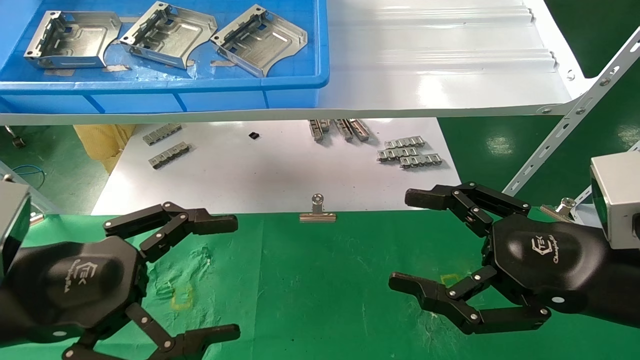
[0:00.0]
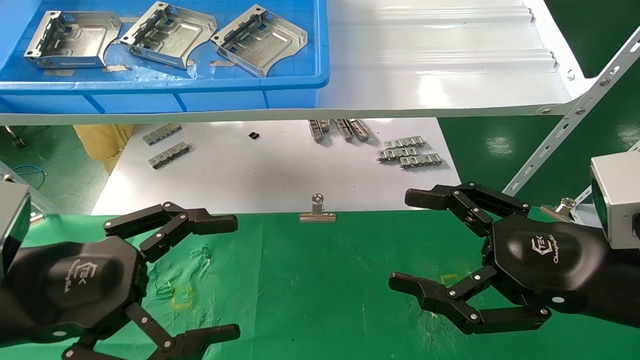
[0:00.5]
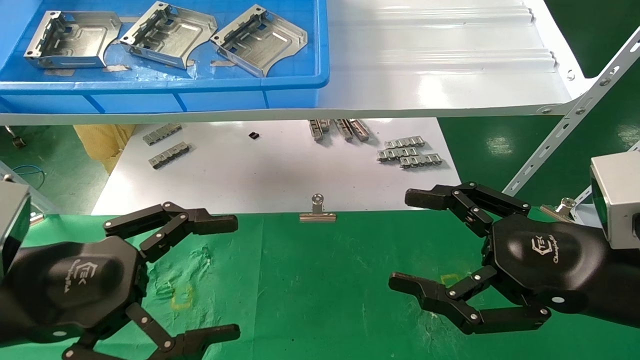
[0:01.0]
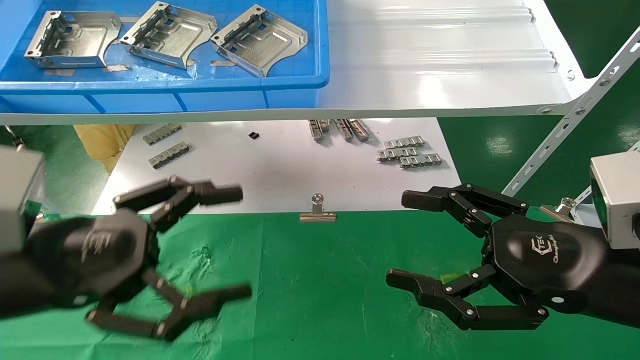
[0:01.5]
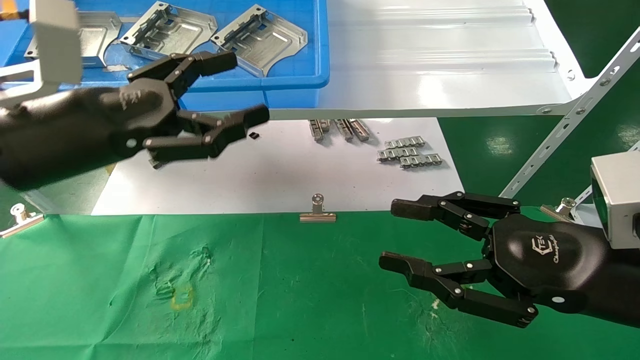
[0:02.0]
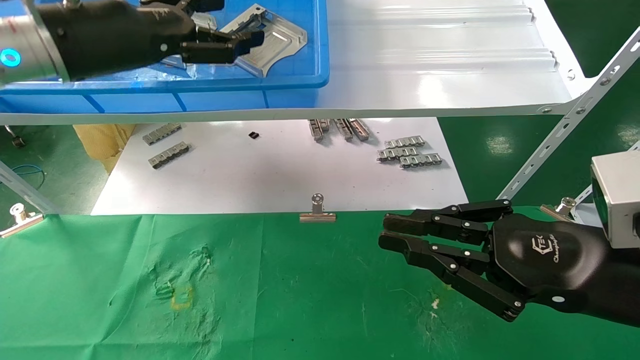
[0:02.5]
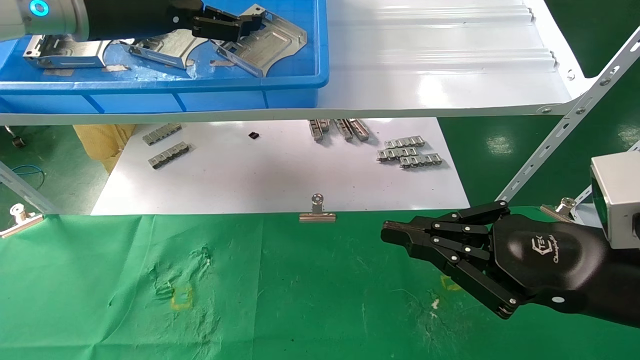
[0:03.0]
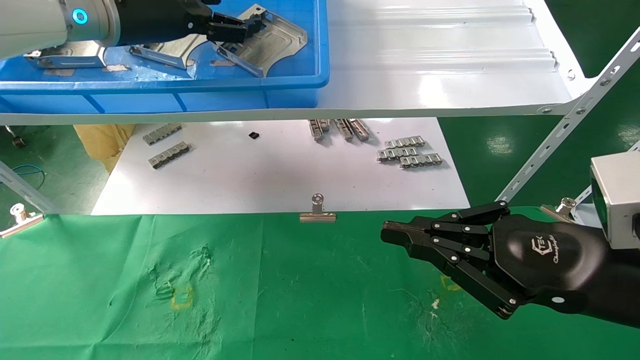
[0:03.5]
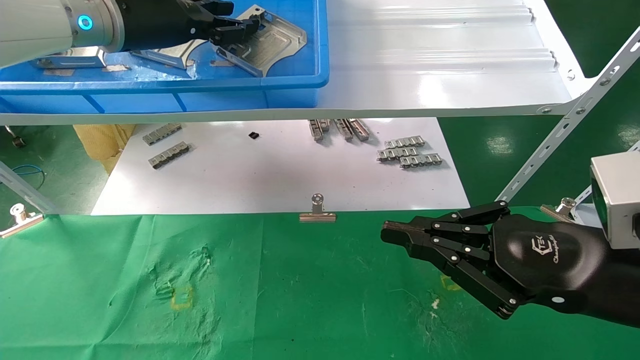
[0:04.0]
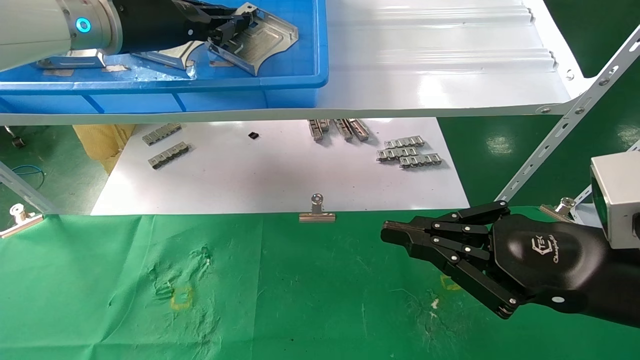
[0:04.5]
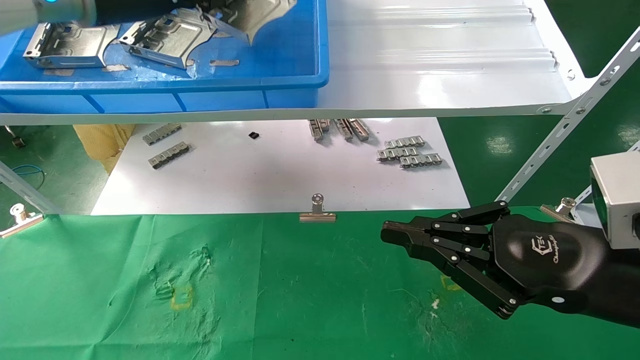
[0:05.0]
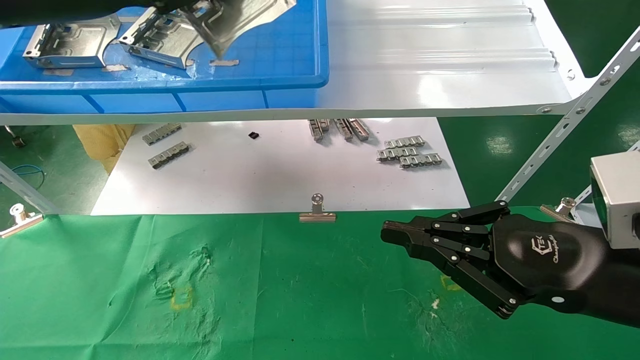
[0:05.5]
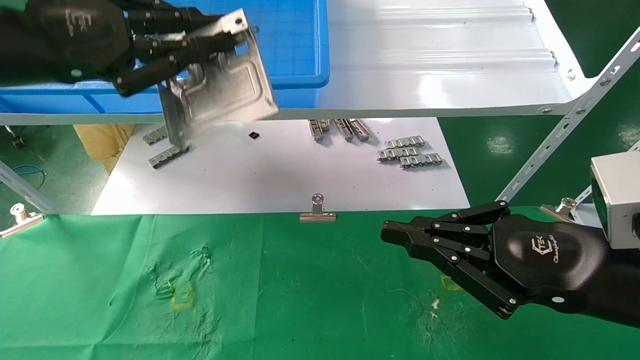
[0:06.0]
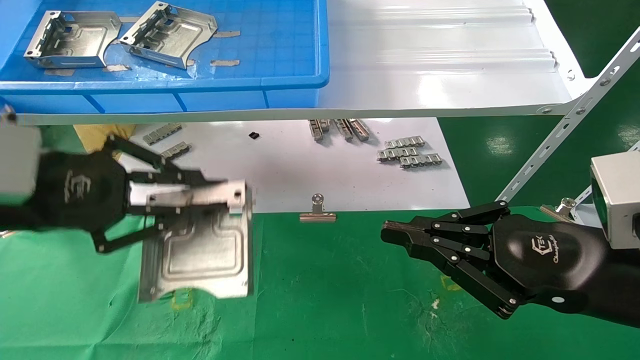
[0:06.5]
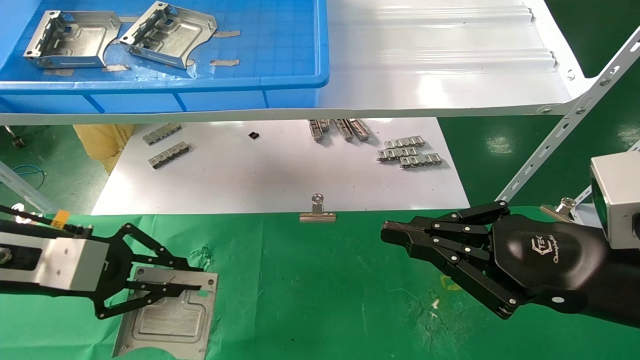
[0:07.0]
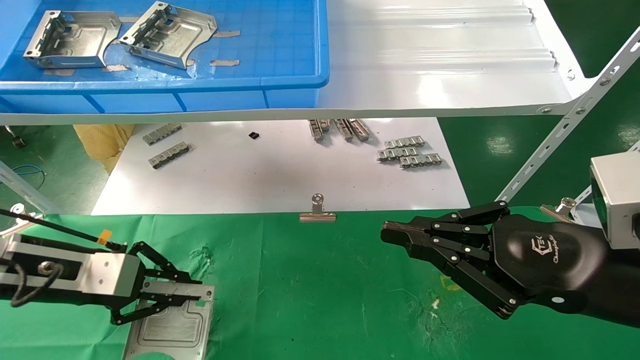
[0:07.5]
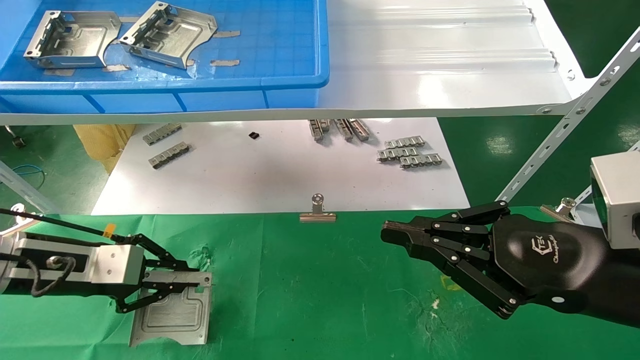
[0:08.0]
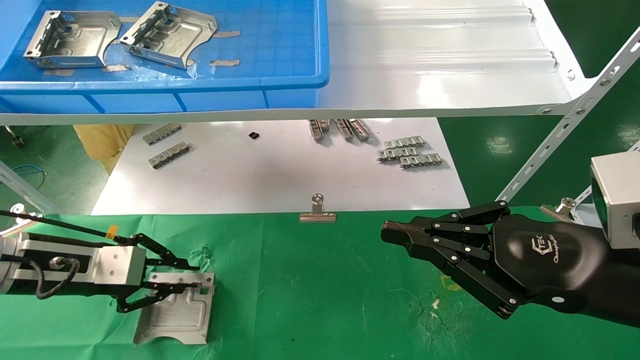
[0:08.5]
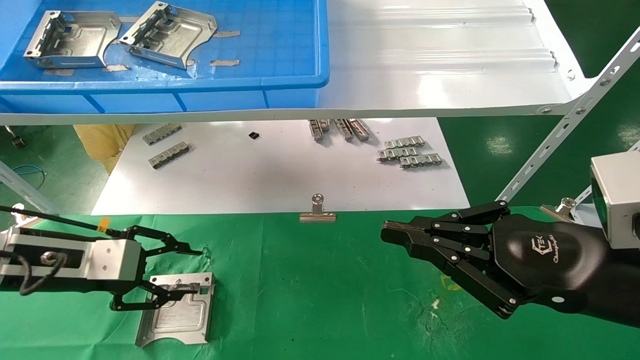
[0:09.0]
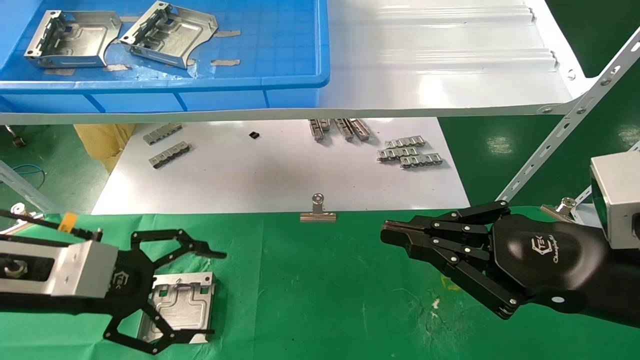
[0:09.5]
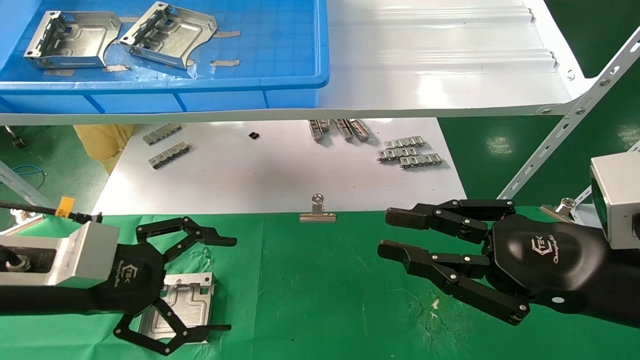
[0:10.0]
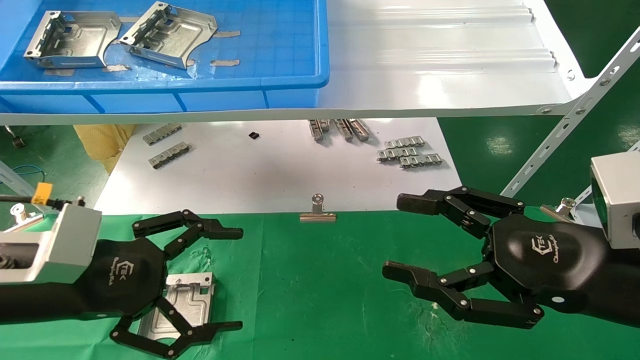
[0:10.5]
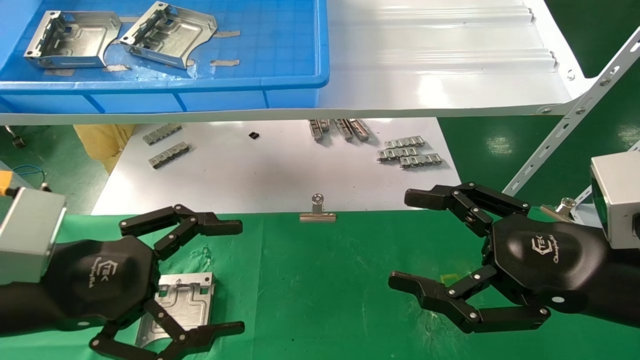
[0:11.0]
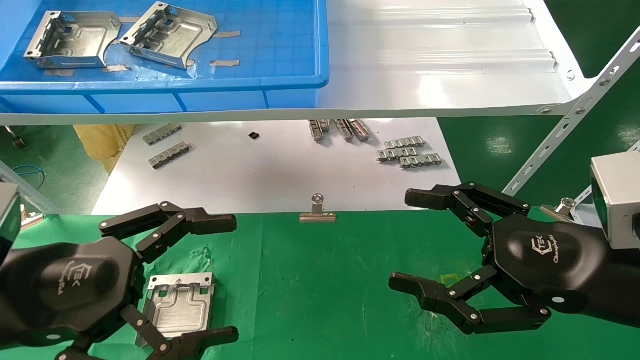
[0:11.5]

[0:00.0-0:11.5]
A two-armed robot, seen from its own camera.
Task of the whole recording: use the mechanical arm to pick up the parts and place them on the table.
Step, 0:02.0 to 0:04.5: Pick up the hard drive bracket from the feeding area.
Step, 0:05.0 to 0:08.5: Place the hard drive bracket into the box.
0:00.0 to 0:02.0: The right gripper closes its fingers; the left gripper is displaced upward and forward by some 15 cm.
0:02.0 to 0:04.0: The right gripper closes; the left gripper heads forward and upward, covering approximately 20 cm, and closes.
0:04.0 to 0:06.0: The left gripper shifts some 15 cm backward and to the left, and closes.
0:06.0 to 0:07.5: The left gripper goes roughly 20 cm downward.
0:07.5 to 0:09.5: The left gripper shifts by about 5 cm, and opens up.
0:09.5 to 0:11.5: The left gripper heads backward, covering about 10 cm. Meanwhile the right gripper opens.
